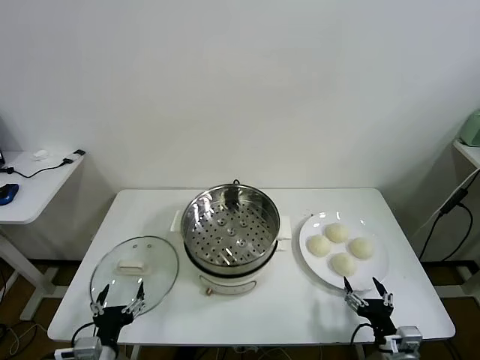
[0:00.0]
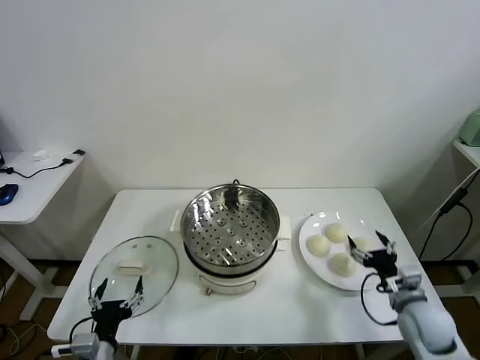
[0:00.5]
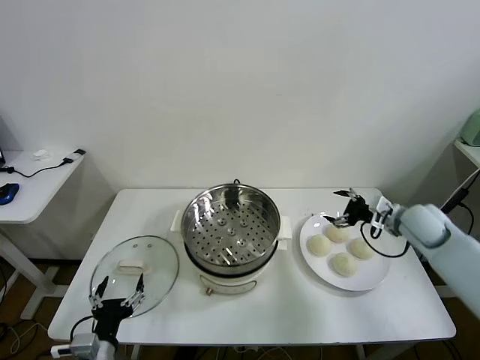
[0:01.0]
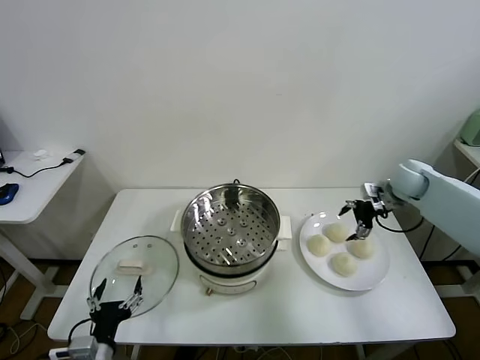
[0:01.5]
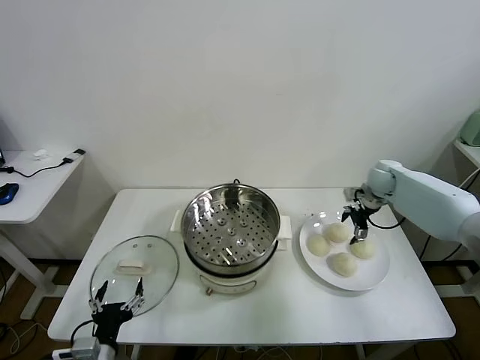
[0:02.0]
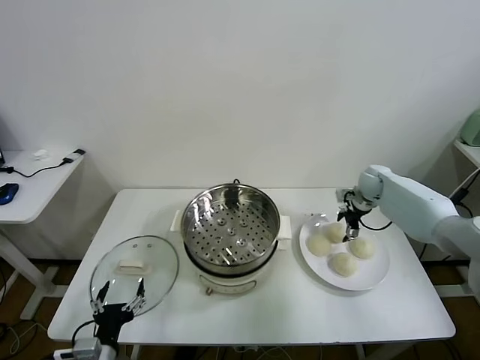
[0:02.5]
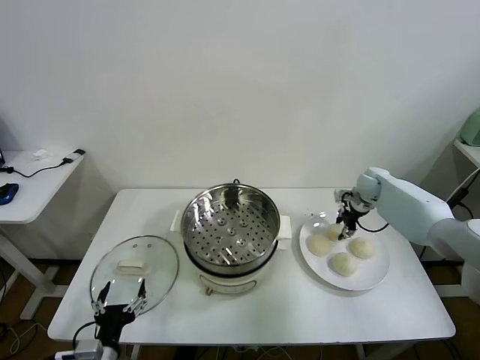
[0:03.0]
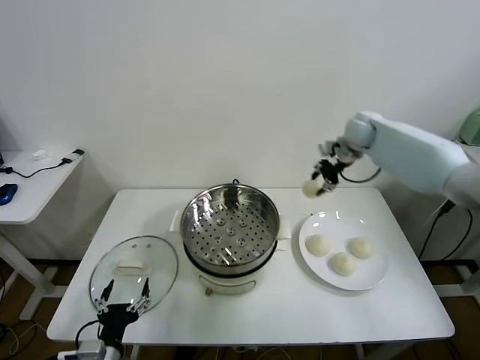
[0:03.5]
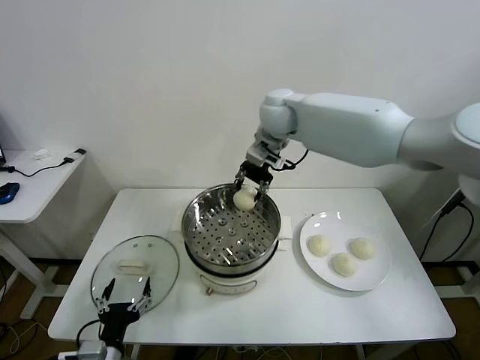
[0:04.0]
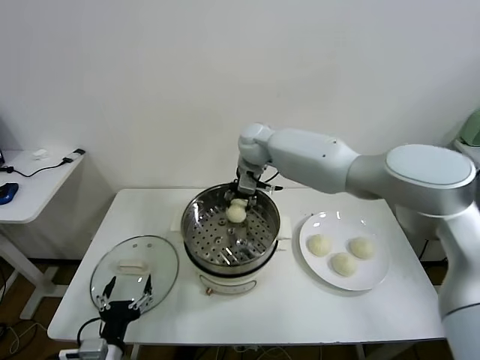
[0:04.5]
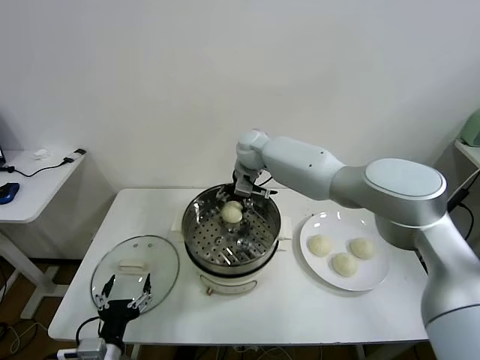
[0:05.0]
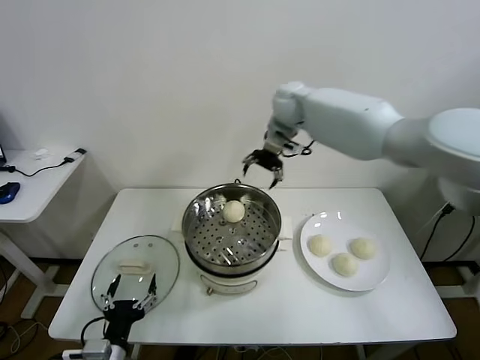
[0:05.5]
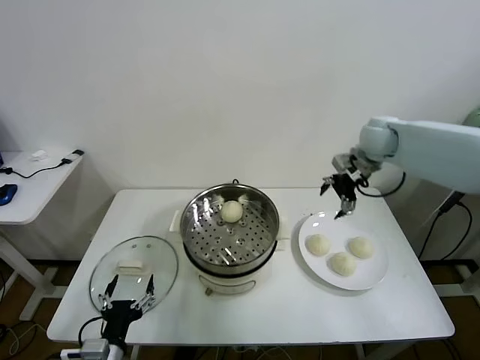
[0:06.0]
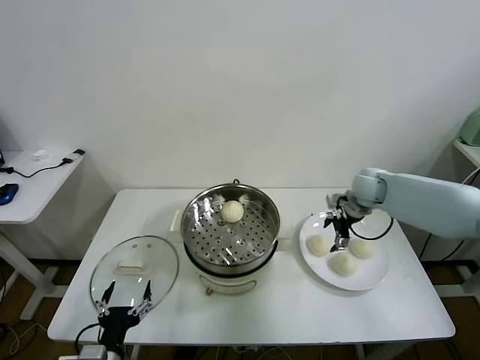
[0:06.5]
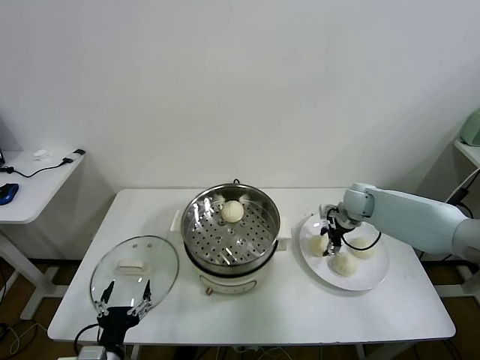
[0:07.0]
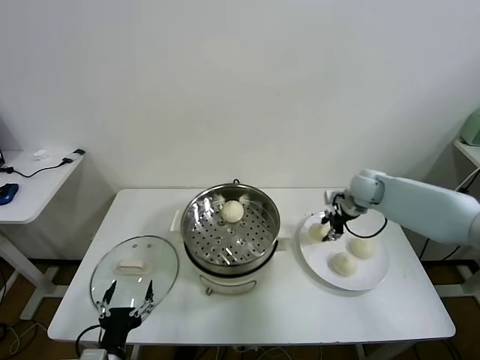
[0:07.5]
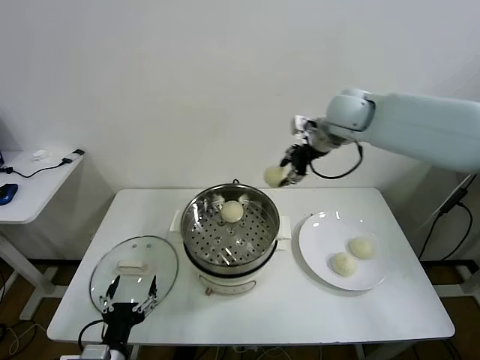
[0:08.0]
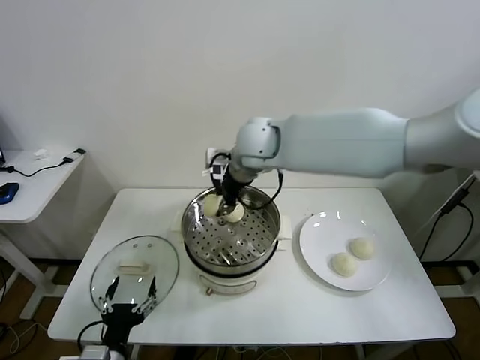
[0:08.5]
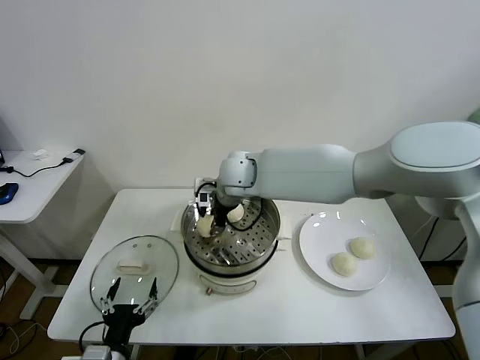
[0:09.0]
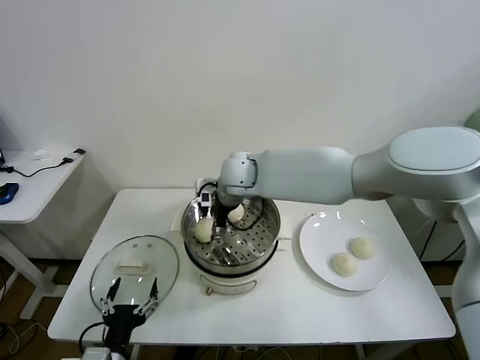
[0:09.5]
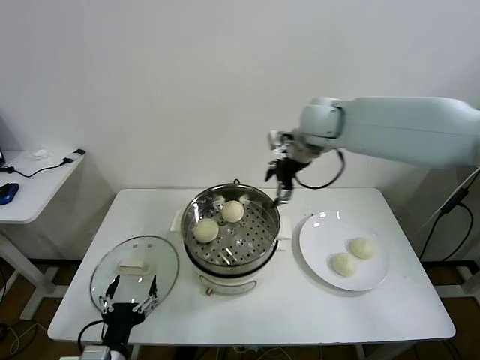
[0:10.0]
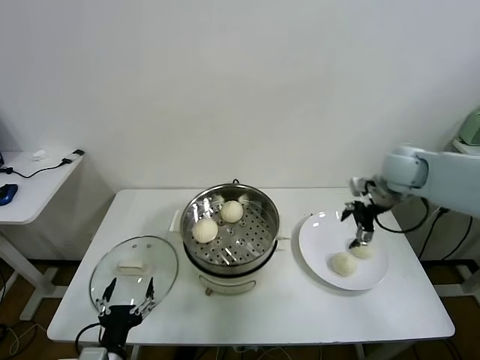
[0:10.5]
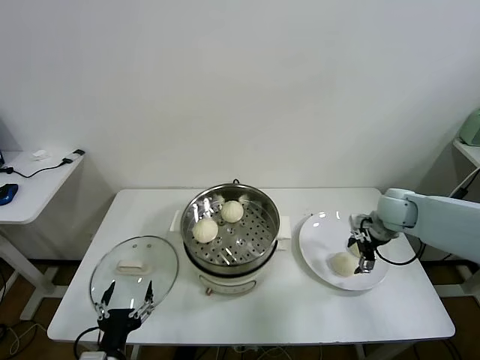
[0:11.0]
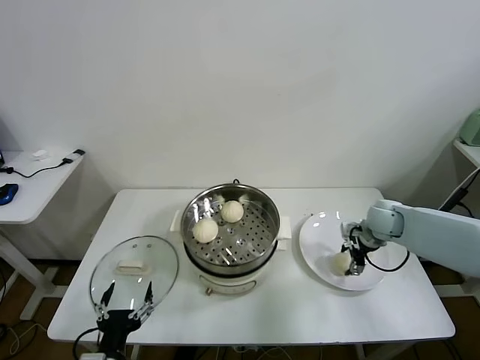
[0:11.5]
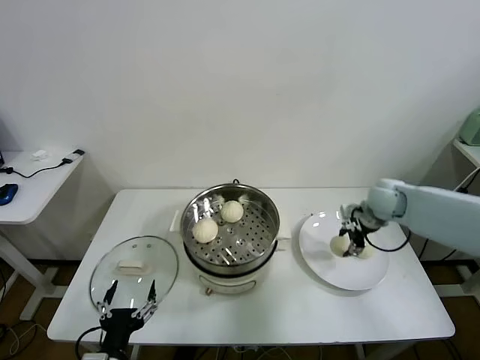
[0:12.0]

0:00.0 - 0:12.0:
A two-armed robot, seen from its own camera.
Task of the whole recording: take steamed baozi put them in steamer.
Step, 0:00.0 - 0:02.5: Grasp the baozi in the plate with right gripper.
Step, 0:03.0 - 0:04.5: Place the baozi on the steamer with right gripper.
Step, 0:05.0 - 0:07.0: Grasp the baozi in the plate with right gripper.
Step, 0:07.5 - 0:09.5: Place the baozi on the steamer with right gripper.
Step, 0:10.0 - 0:11.5: Grasp the baozi in the plate with right gripper.
0:02.0 - 0:04.0: The right gripper travels to the left and upward by about 35 cm, and closes up.
0:04.0 - 0:06.0: The right gripper is displaced to the right by about 25 cm, and opens.
0:06.0 - 0:08.0: The right gripper shifts roughly 20 cm to the left and upward, and closes its fingers.
0:08.0 - 0:10.0: The right gripper reaches approximately 20 cm to the left, then returns, and opens up.
0:10.0 - 0:12.0: The right gripper shifts some 20 cm downward and to the right, and closes.

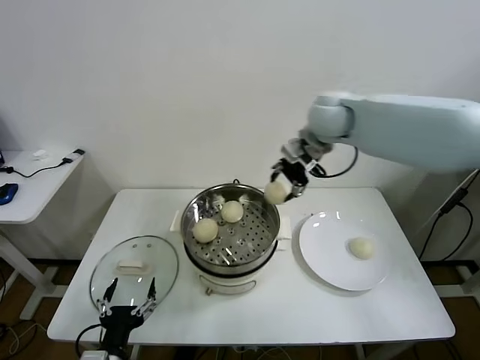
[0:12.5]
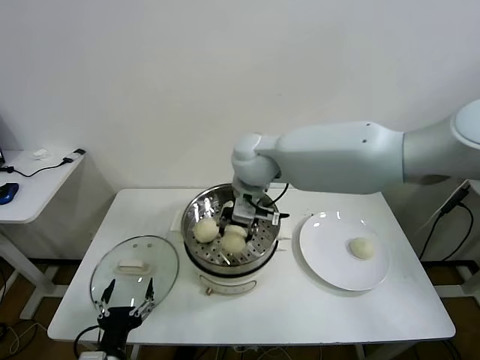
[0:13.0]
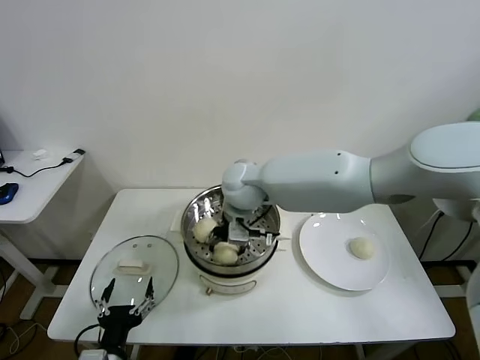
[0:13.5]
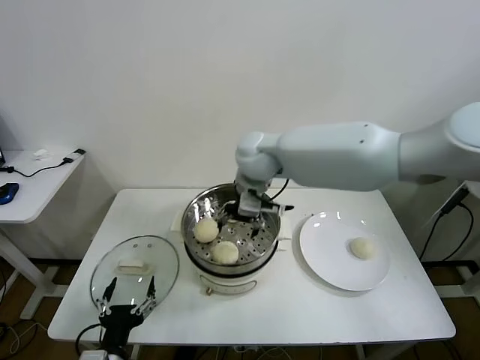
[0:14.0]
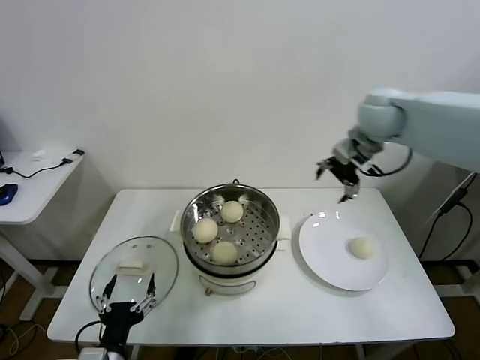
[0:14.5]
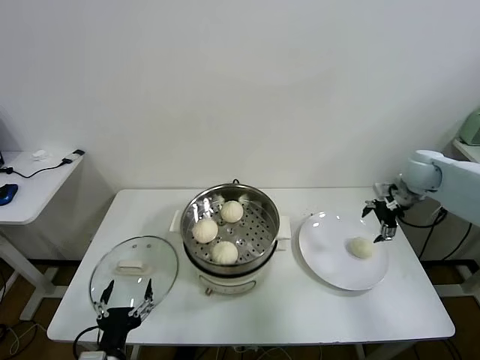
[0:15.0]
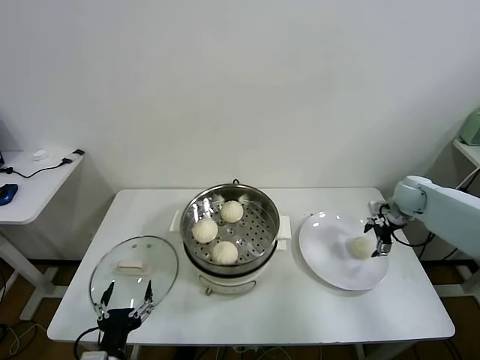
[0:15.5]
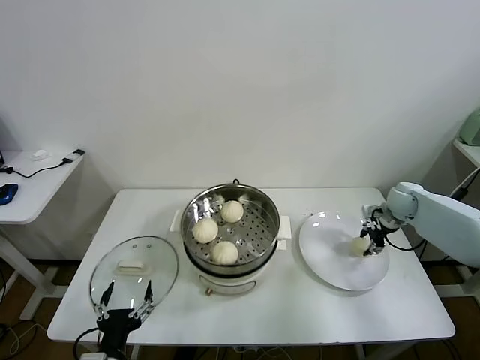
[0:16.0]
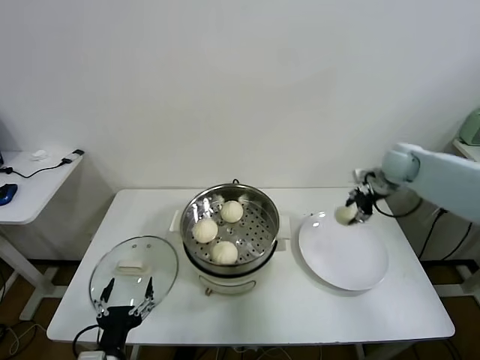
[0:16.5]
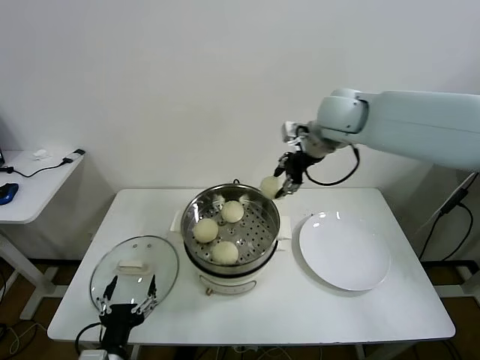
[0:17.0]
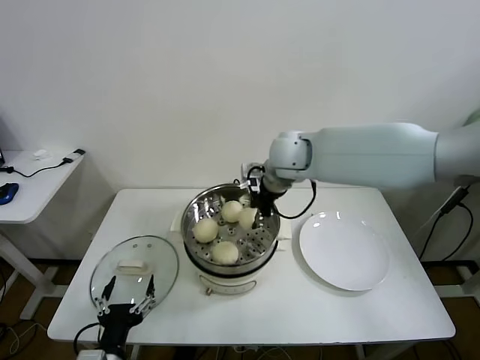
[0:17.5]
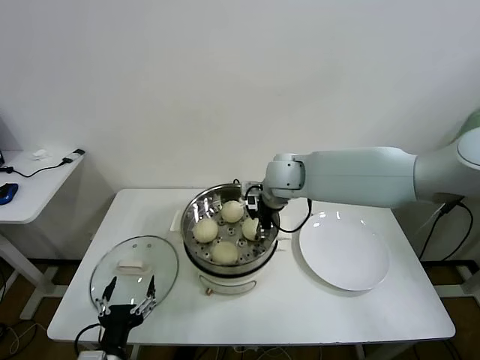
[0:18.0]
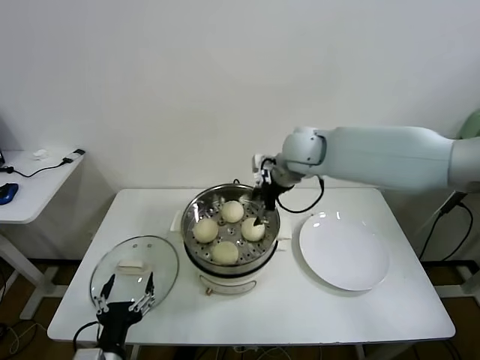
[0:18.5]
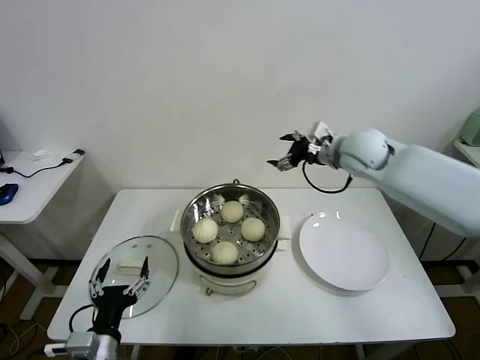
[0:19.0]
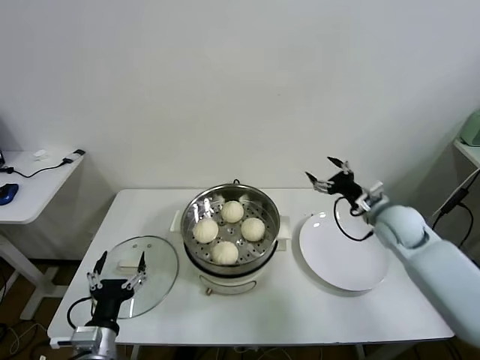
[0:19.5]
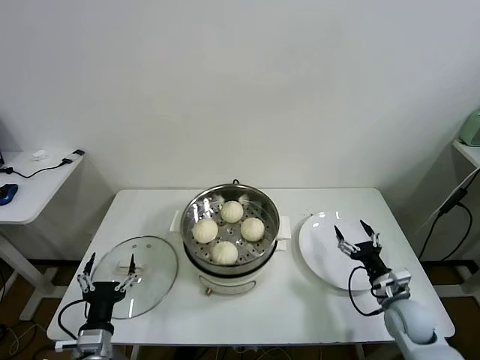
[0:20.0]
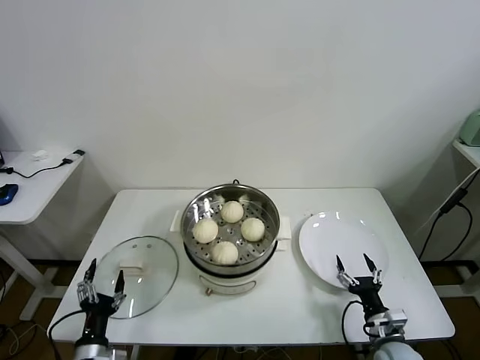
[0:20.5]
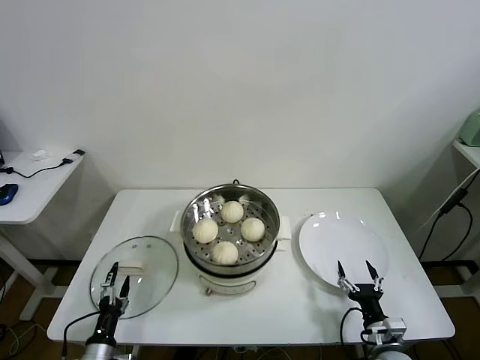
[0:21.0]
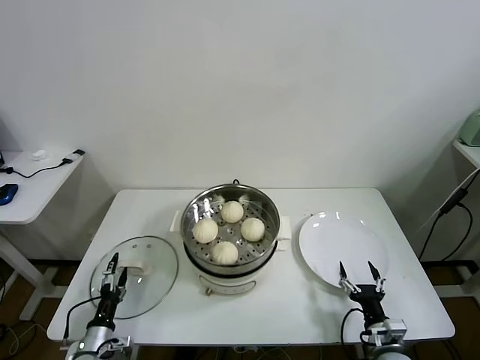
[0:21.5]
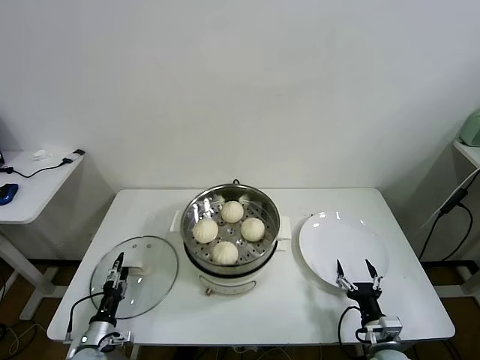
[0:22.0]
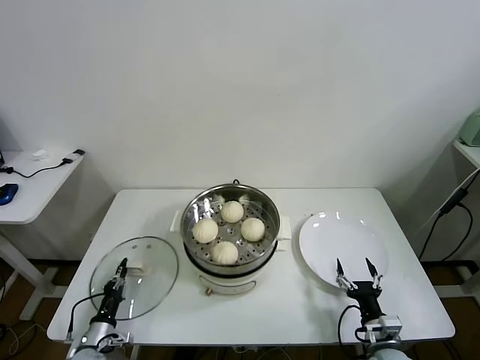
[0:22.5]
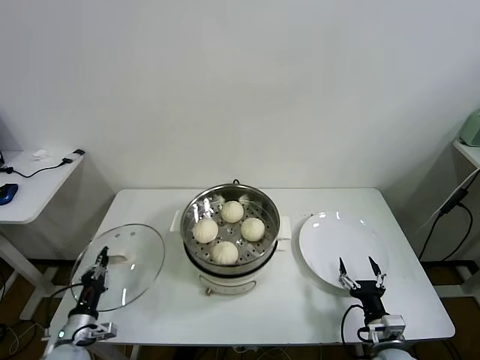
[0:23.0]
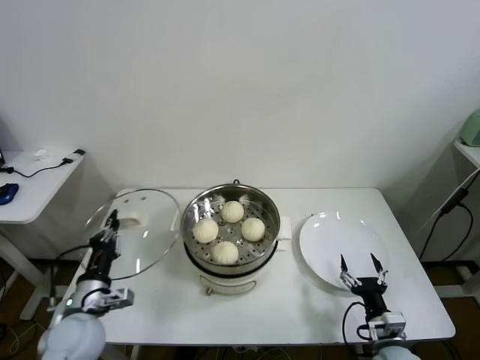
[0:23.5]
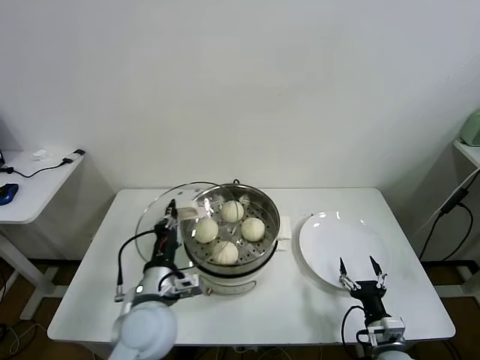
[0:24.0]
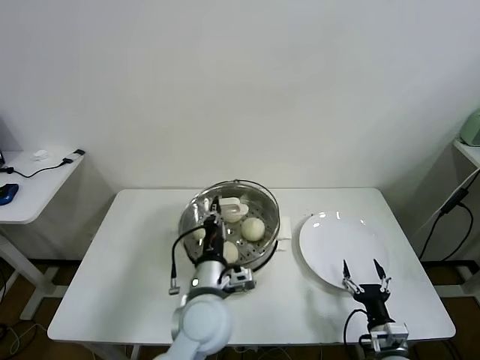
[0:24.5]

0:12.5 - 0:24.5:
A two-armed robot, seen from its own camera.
Task of the whole recording: take steamed baozi put them in steamer.
Step, 0:12.5 - 0:13.5: Place the baozi on the steamer with right gripper.
Step, 0:14.0 - 0:15.5: Grasp the baozi in the plate with right gripper.
Step, 0:16.5 - 0:18.0: Place the baozi on the steamer with right gripper.
Step, 0:18.5 - 0:22.5: Grasp the pot lid with left gripper.
0:12.5 - 0:14.5: The right gripper heads to the right, covering about 15 cm, and opens up.
0:14.5 - 0:16.5: The right gripper moves downward and to the right, roughly 15 cm, and closes.
0:16.5 - 0:18.5: The right gripper heads to the left, covering roughly 25 cm, and opens its fingers.
0:18.5 - 0:20.5: The right gripper heads downward, backward and to the right, covering roughly 50 cm; the left gripper moves downward and to the left, approximately 15 cm.
0:20.5 - 0:22.5: The left gripper moves downward, forward and to the left, some 15 cm, and closes its fingers.
0:22.5 - 0:24.5: The left gripper moves to the right and upward, approximately 40 cm.

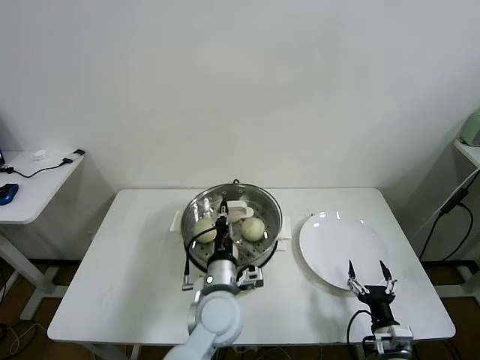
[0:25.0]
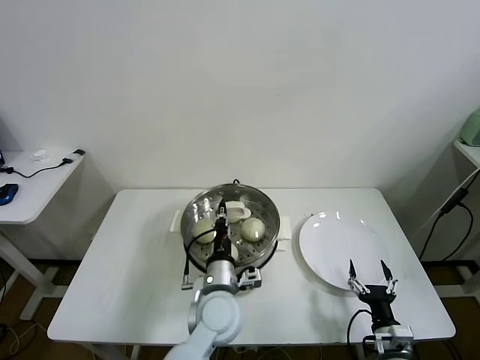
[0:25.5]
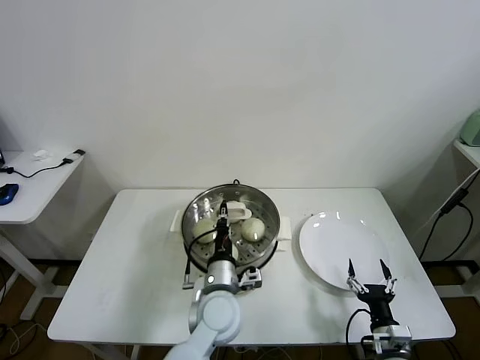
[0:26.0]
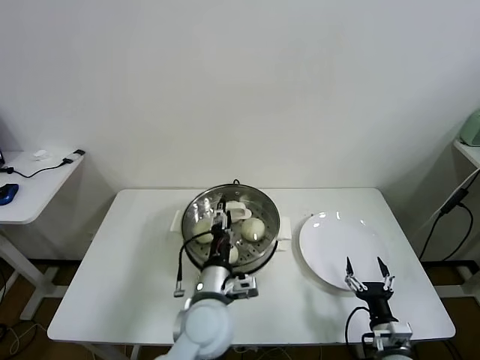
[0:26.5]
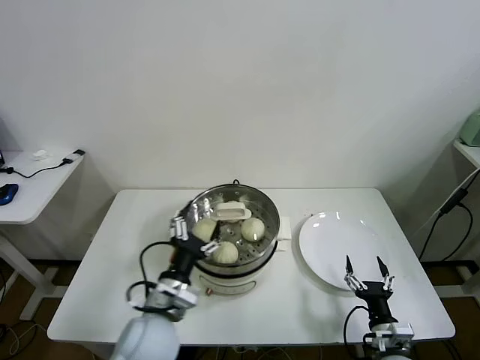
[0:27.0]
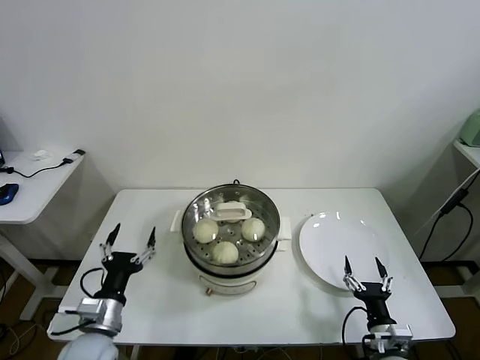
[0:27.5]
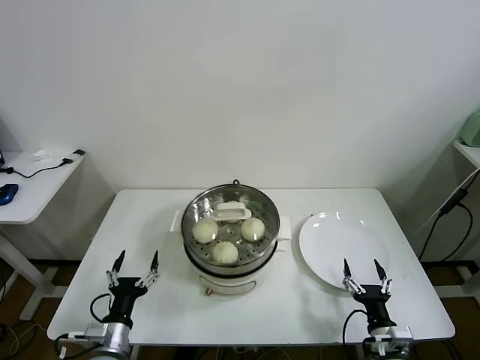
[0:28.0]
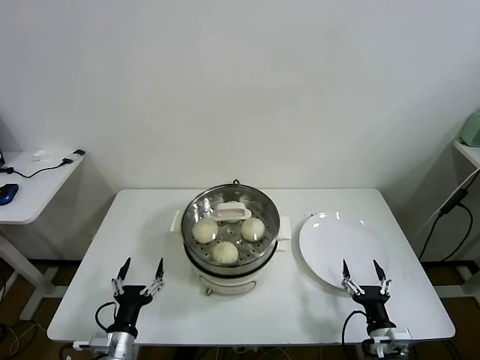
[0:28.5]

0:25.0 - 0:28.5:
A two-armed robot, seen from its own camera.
Task of the whole recording: take steamed baozi put them in steamer.
0:25.0 - 0:27.0: The left gripper travels to the left by some 10 cm, and opens its fingers.
0:27.0 - 0:28.5: The left gripper shifts some 20 cm downward, to the left and backward.
